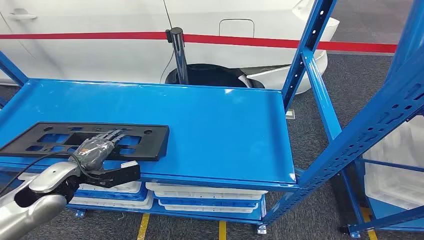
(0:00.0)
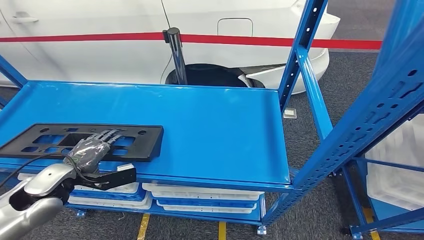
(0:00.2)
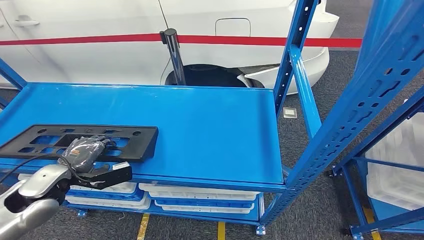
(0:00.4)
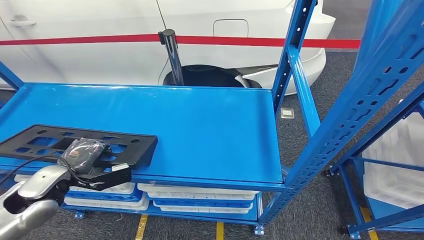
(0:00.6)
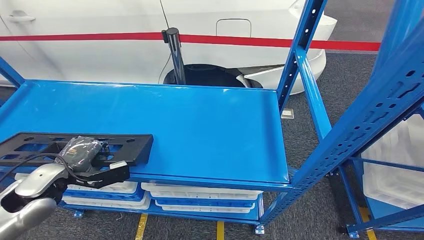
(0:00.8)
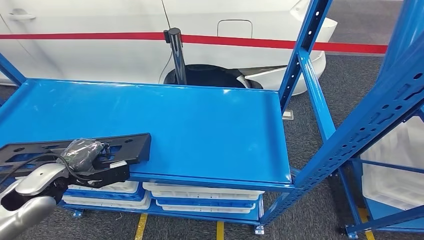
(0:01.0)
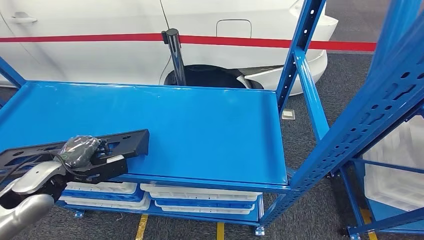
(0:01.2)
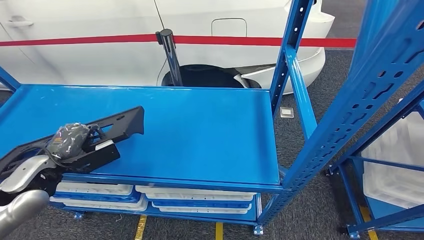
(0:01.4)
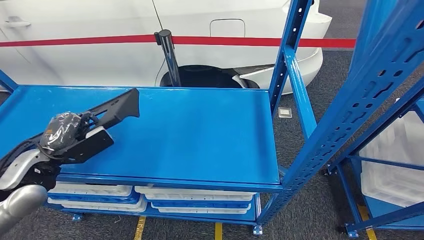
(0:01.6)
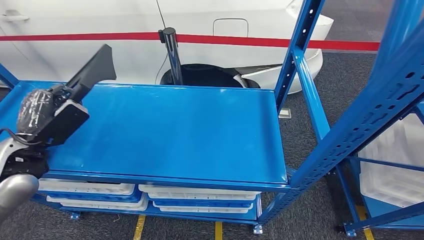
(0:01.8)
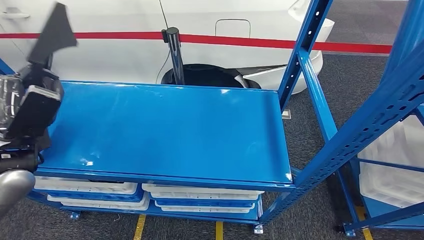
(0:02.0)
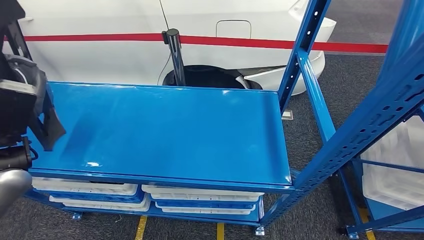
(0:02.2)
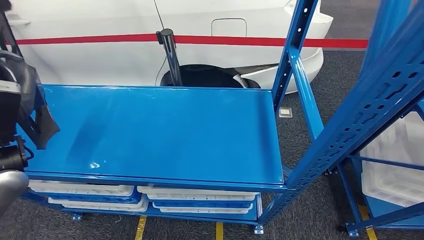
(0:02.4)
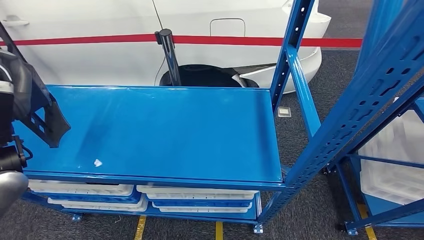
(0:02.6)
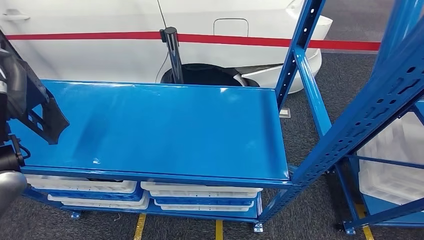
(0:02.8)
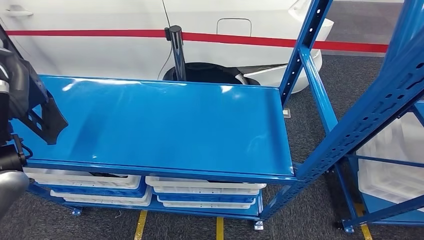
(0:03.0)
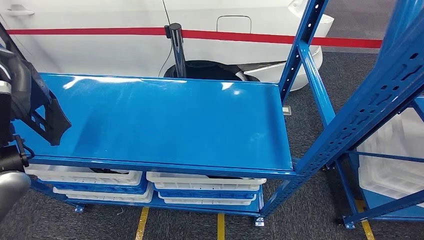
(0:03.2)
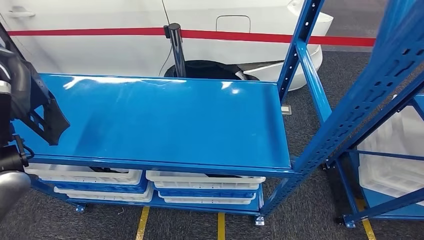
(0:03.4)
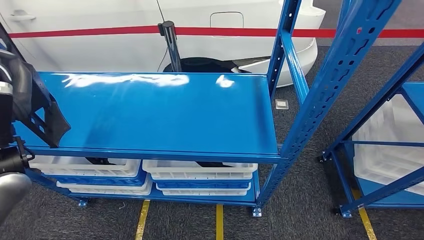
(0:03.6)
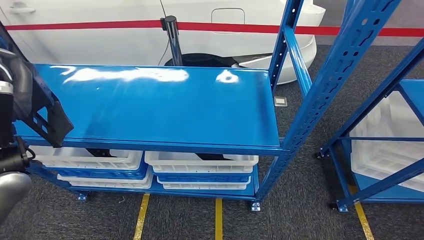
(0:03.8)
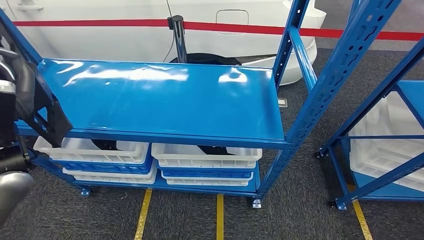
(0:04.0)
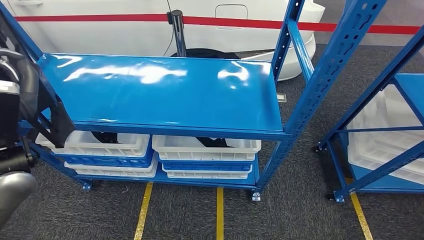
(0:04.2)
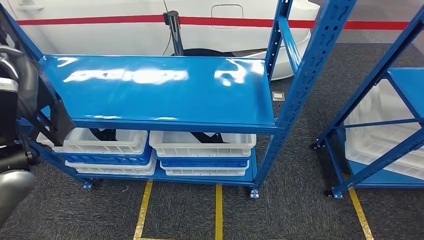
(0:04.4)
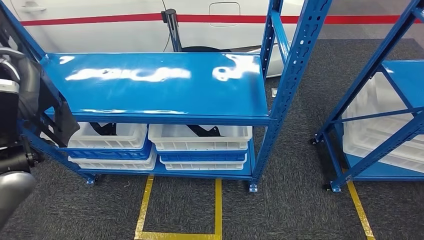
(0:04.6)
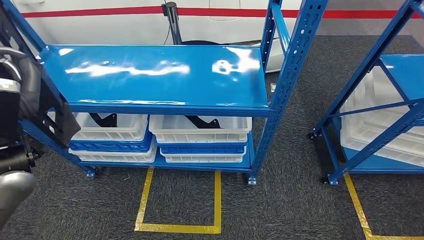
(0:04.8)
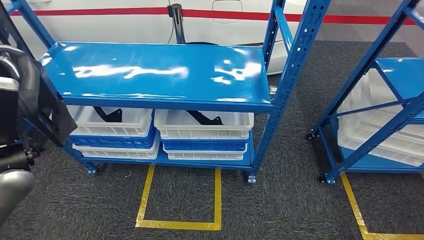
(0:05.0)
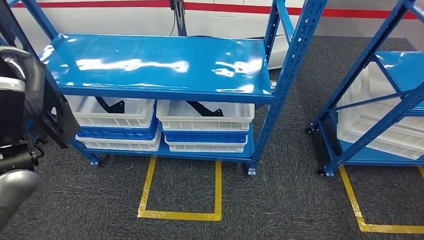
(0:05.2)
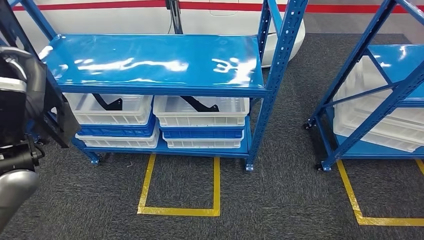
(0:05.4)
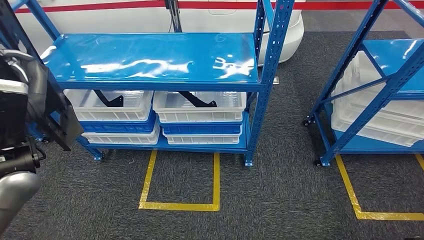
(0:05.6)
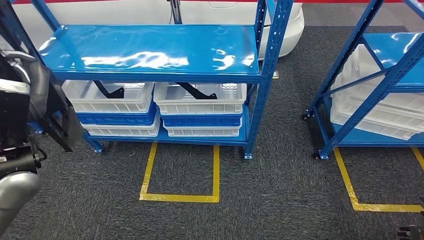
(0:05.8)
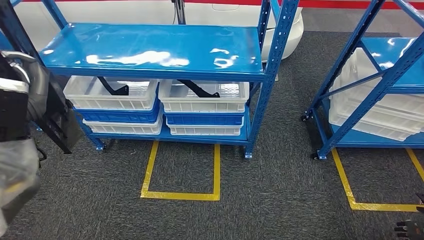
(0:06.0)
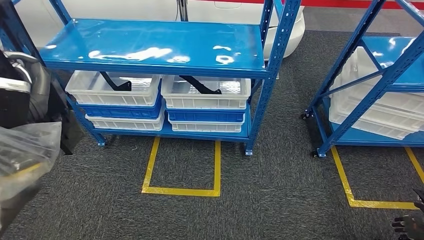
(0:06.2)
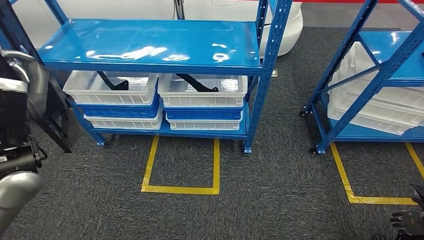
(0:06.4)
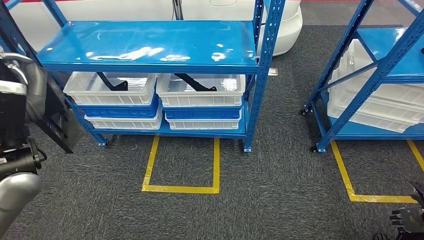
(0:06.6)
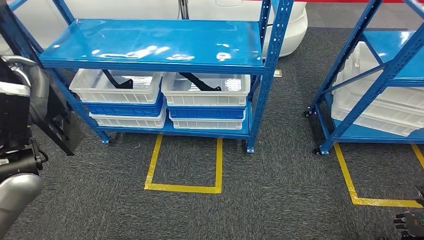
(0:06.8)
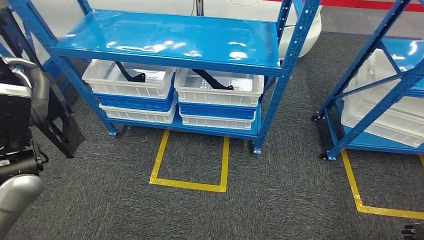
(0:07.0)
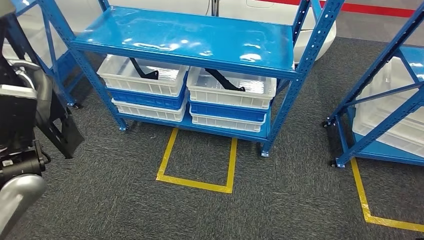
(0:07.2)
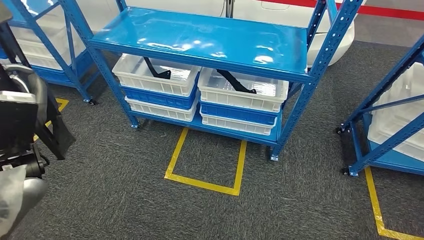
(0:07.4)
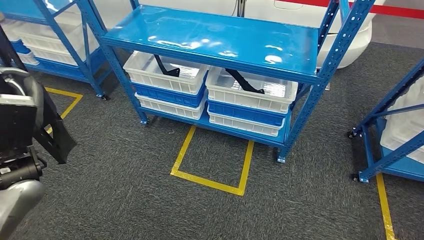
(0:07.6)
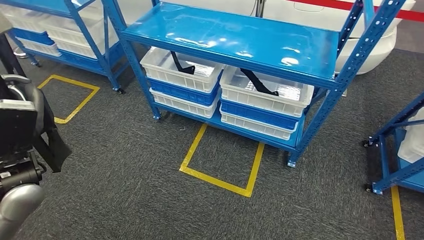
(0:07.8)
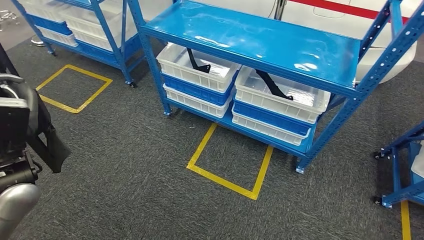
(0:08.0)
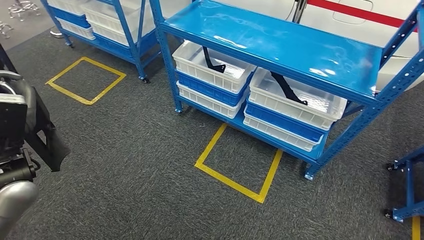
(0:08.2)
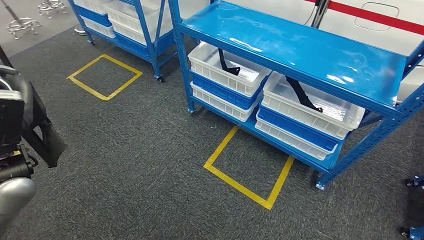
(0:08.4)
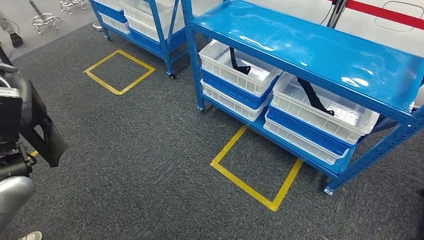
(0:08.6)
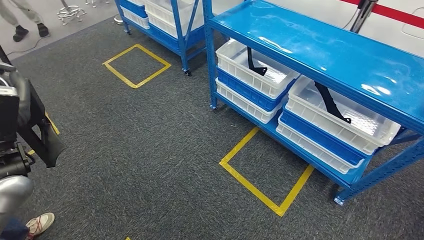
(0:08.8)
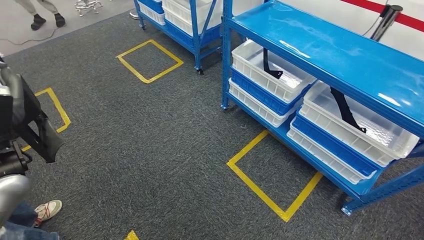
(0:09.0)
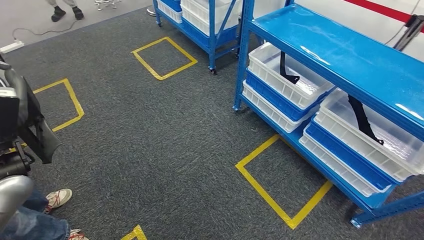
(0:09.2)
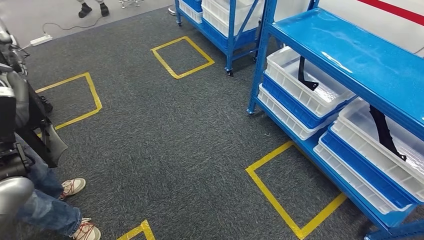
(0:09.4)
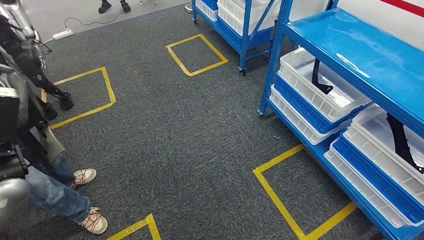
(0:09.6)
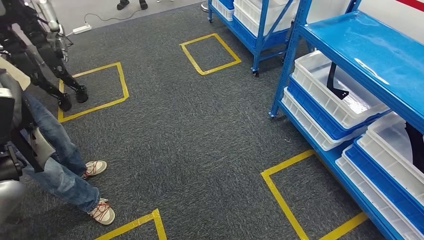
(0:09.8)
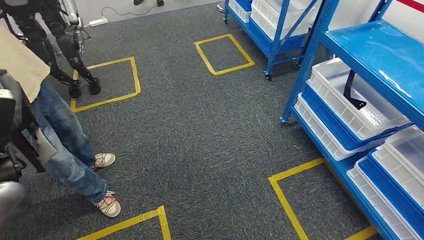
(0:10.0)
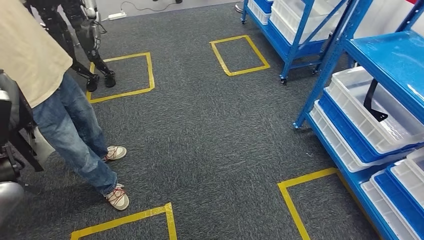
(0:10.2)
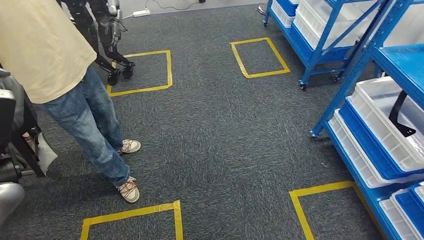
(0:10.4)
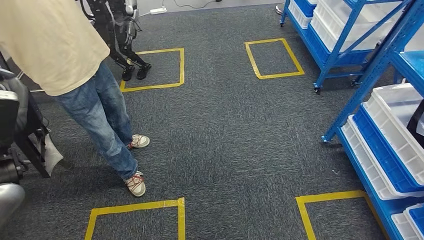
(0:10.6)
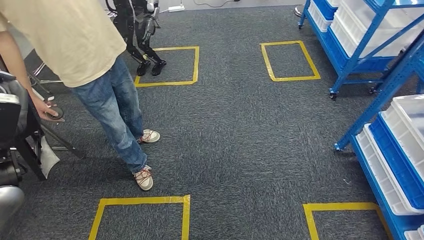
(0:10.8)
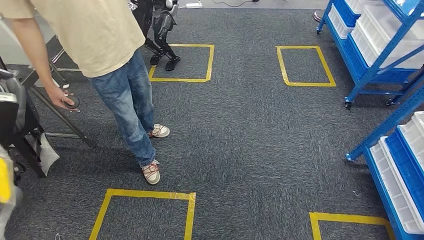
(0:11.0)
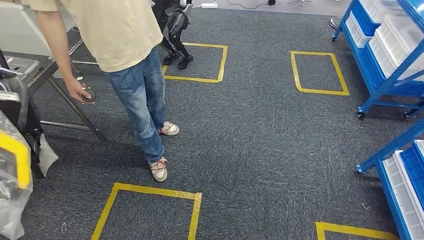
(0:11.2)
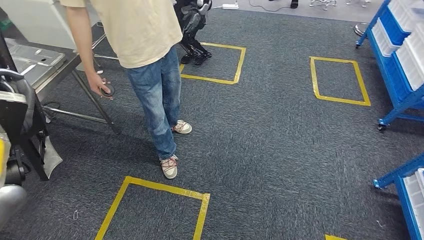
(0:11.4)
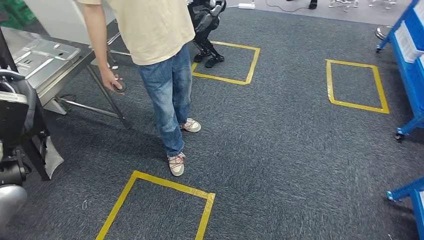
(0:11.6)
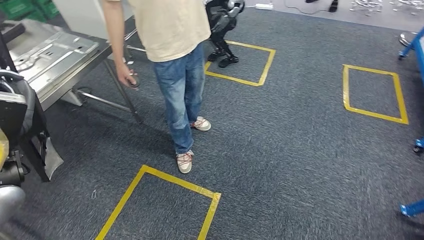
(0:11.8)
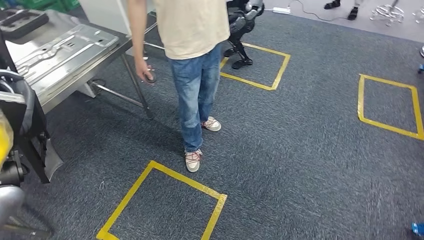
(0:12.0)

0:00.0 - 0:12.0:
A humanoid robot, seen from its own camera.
Step, 0:00.0 - 0:04.8: Pick up the large material from the shelf.

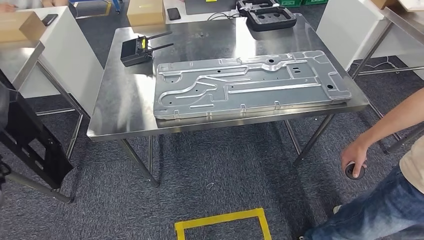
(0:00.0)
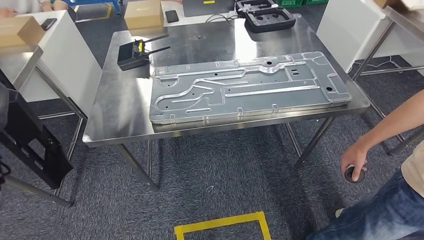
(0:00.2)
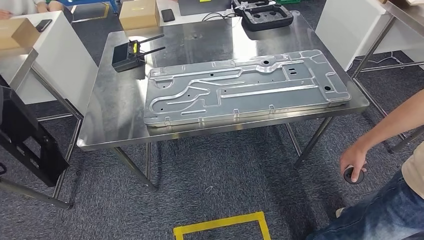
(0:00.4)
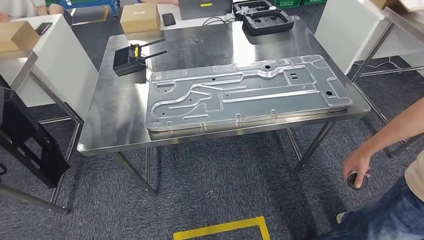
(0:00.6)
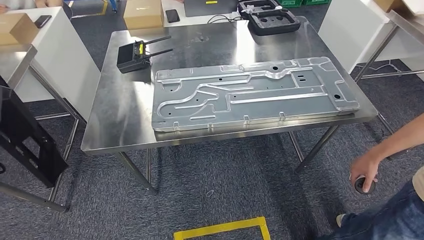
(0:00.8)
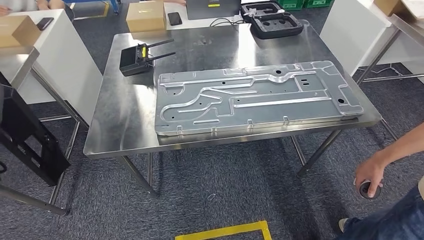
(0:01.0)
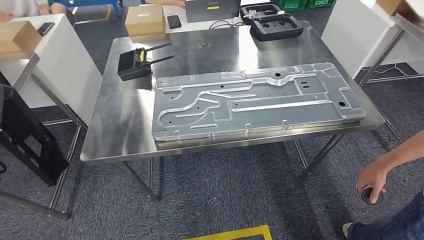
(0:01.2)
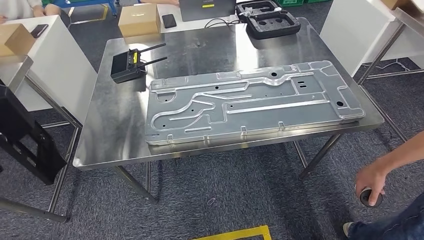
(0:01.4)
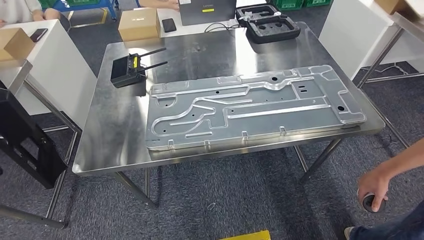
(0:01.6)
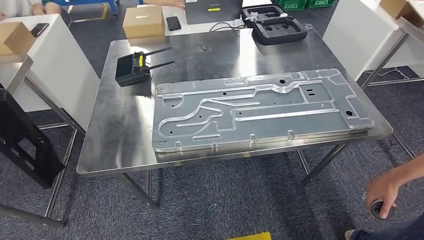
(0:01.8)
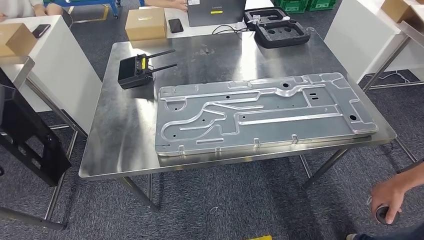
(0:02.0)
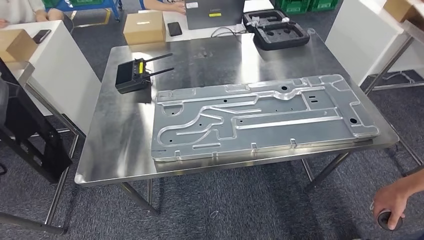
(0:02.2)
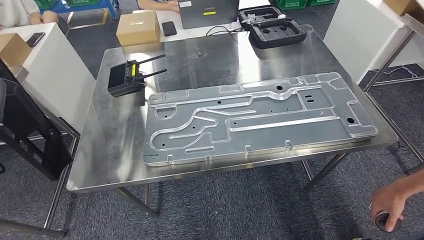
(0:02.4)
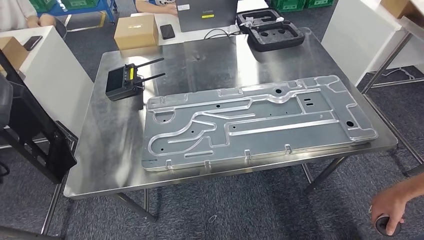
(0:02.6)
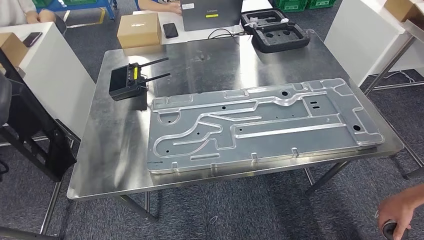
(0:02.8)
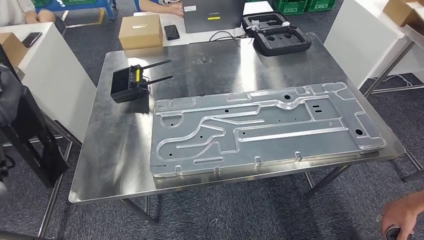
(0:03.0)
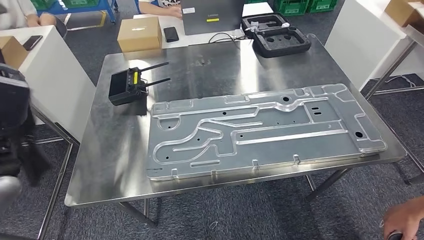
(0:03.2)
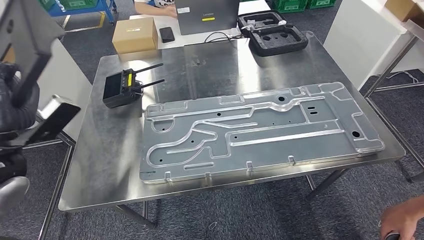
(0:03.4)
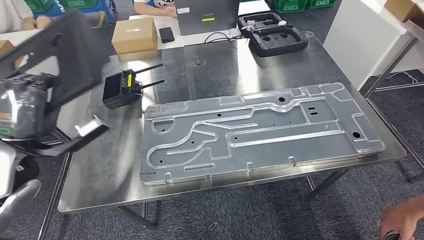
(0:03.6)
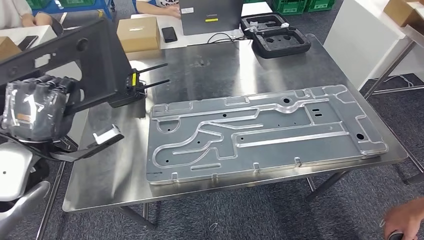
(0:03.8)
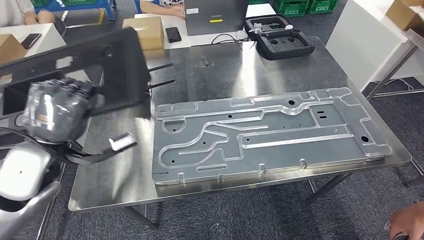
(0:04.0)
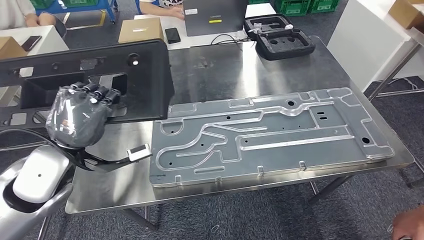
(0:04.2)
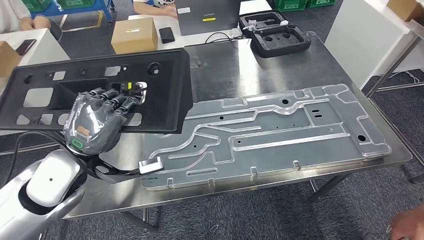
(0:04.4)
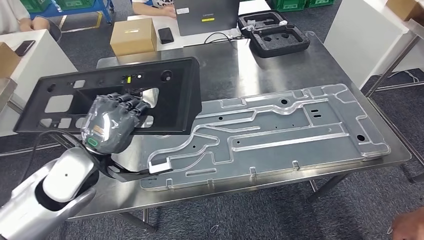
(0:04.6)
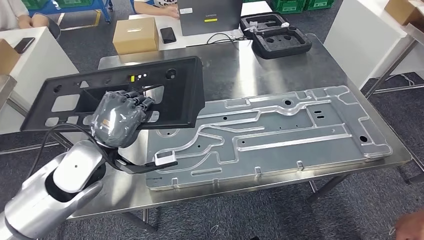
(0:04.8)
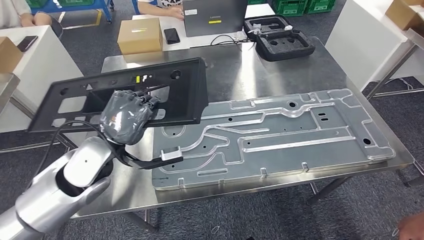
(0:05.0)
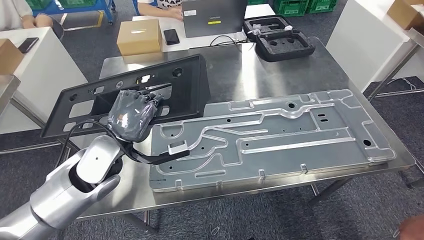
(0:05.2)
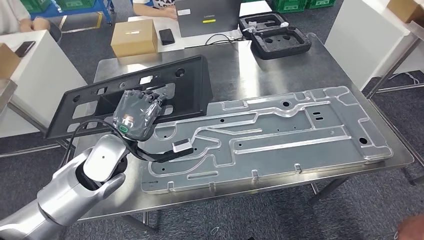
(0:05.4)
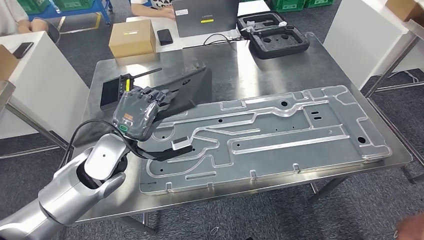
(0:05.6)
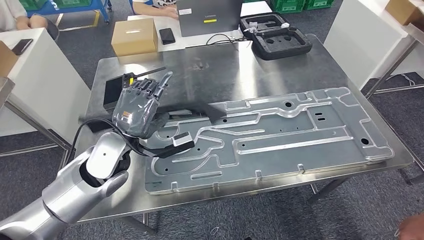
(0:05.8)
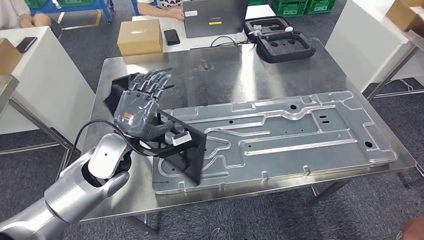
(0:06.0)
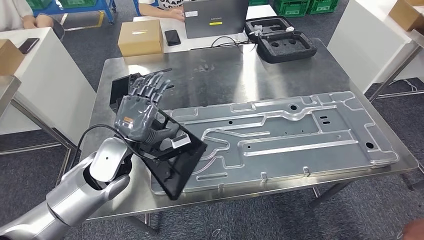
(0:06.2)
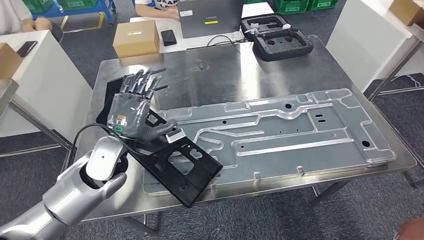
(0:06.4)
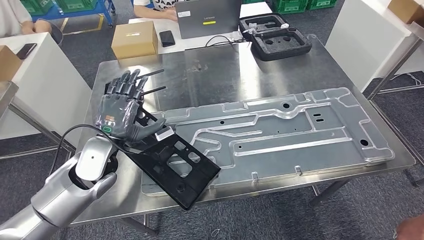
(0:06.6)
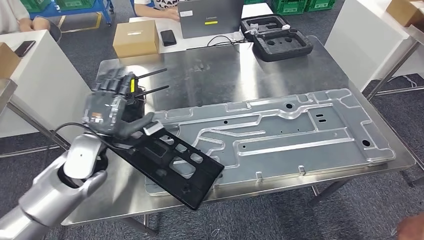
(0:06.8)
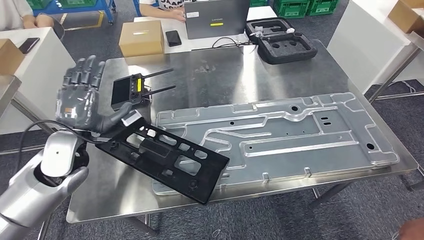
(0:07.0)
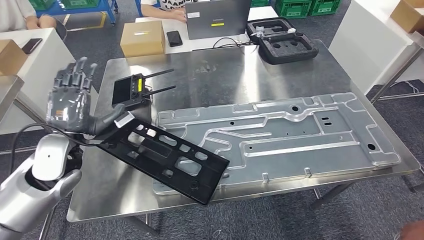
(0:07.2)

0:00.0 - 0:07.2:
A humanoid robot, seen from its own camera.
Step, 0:00.0 - 0:03.8: Move the large material to the workbench.
